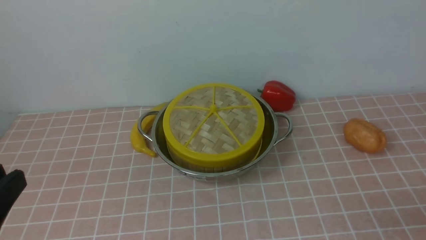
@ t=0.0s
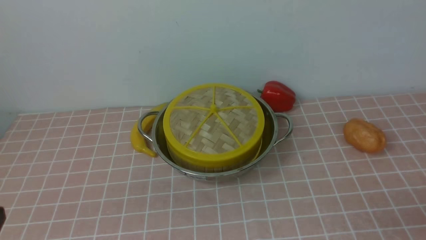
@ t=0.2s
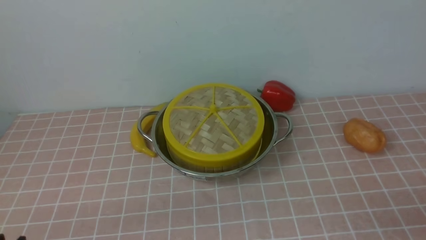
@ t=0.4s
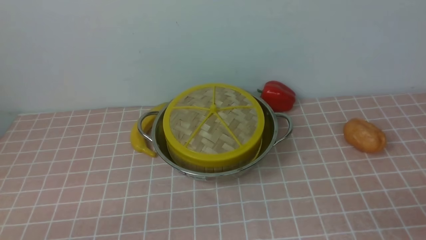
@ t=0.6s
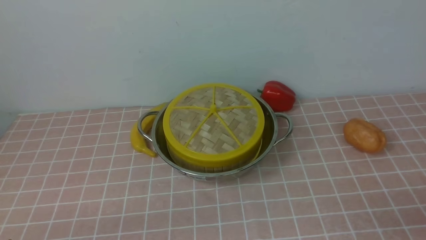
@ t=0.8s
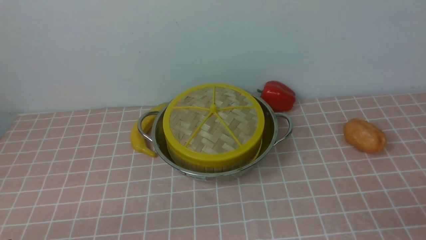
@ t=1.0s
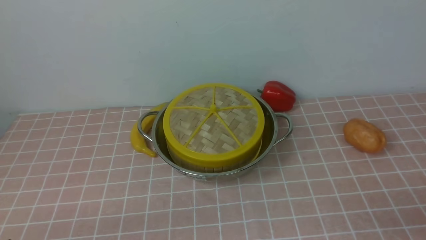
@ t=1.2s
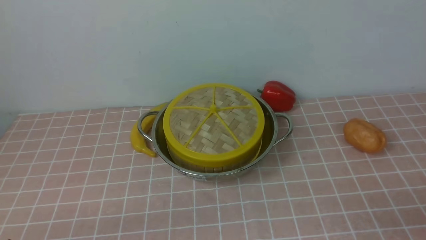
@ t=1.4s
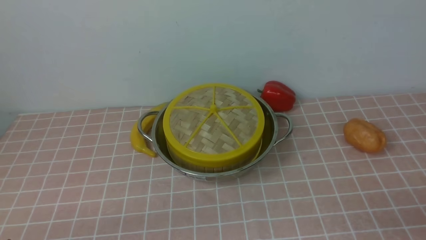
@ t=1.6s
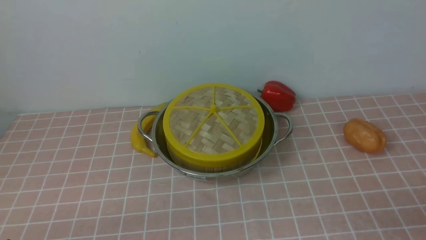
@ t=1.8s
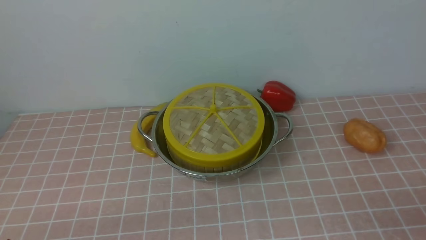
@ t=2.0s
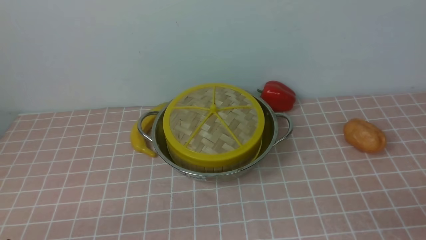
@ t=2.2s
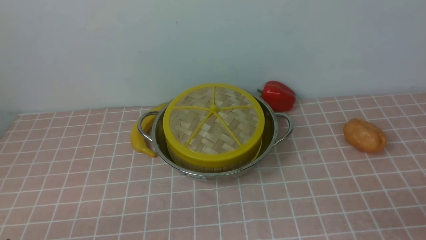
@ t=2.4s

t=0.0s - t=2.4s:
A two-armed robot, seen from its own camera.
Task of the whole recording: place the steamer in the pot on the pink tablecloth, and put the lid on the steamer.
t=0.0s - t=1.2s: The left gripper is displaced downward by some 15 cm.
t=1.2s - t=2.4s: Neither gripper changes place.
